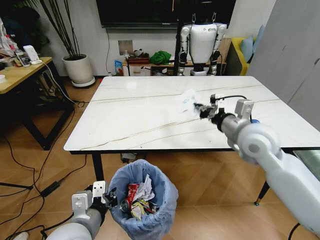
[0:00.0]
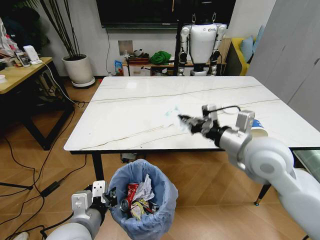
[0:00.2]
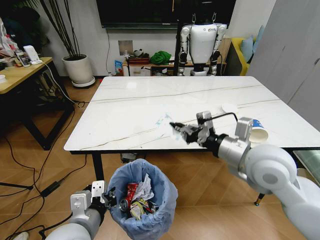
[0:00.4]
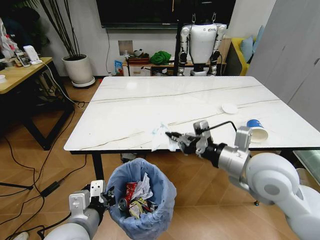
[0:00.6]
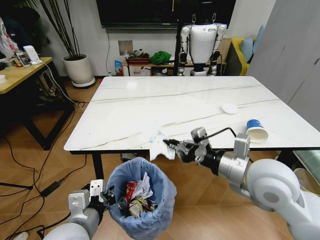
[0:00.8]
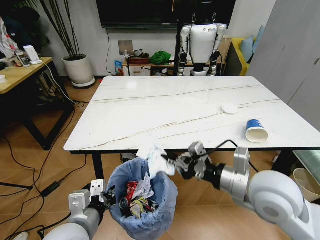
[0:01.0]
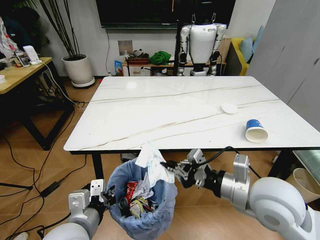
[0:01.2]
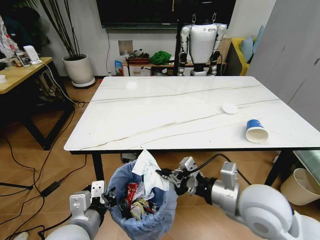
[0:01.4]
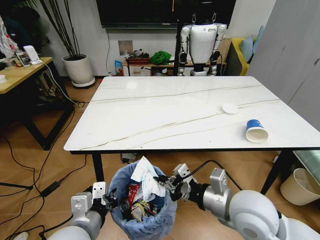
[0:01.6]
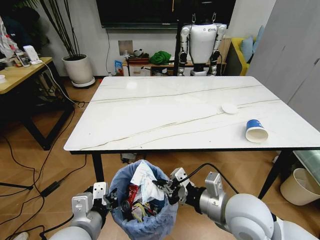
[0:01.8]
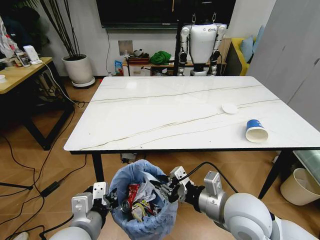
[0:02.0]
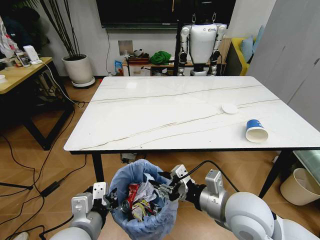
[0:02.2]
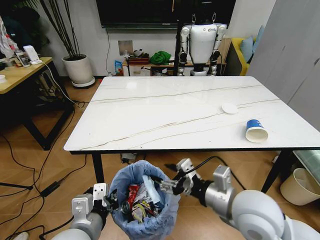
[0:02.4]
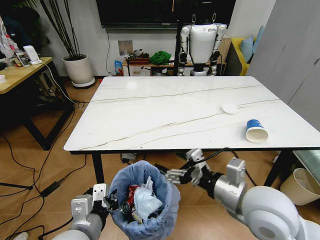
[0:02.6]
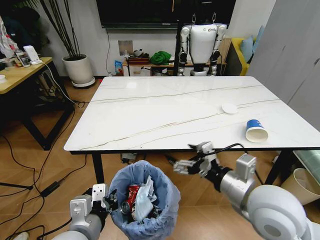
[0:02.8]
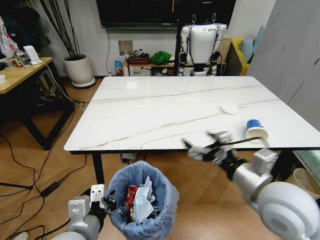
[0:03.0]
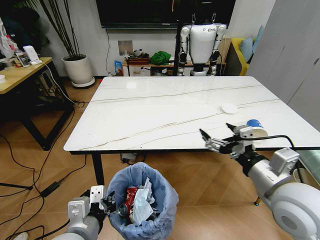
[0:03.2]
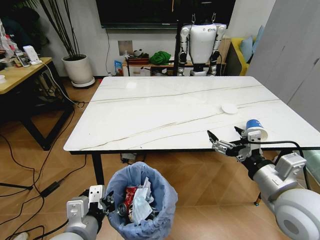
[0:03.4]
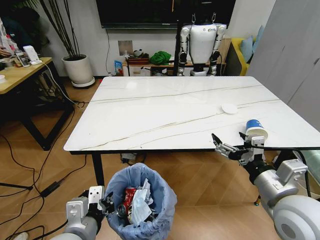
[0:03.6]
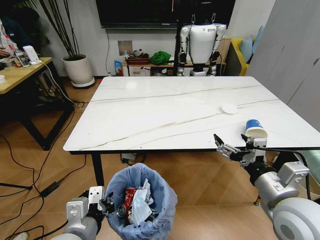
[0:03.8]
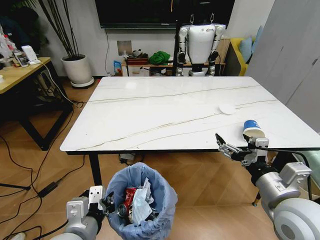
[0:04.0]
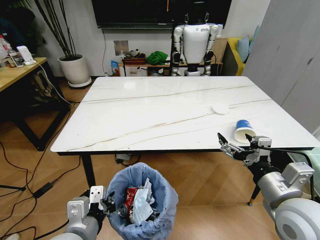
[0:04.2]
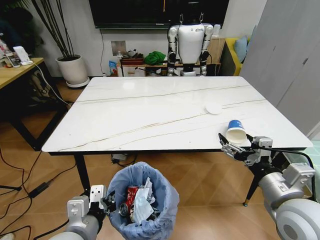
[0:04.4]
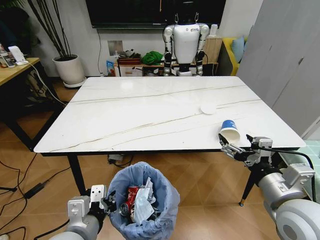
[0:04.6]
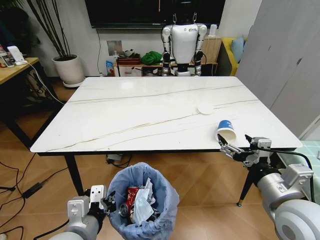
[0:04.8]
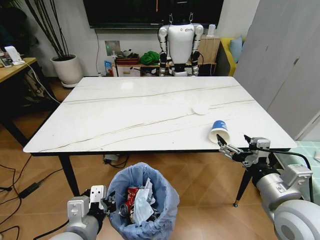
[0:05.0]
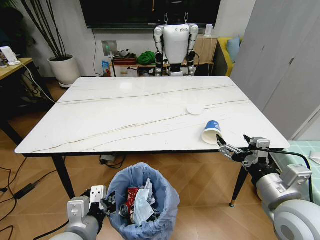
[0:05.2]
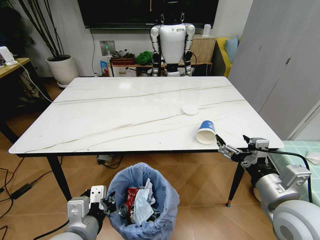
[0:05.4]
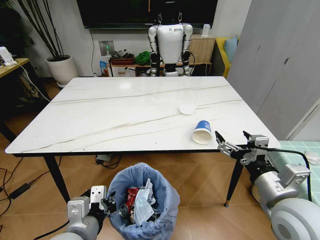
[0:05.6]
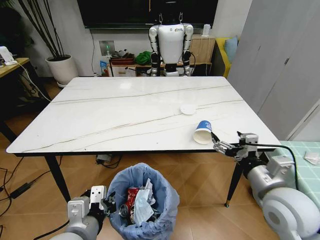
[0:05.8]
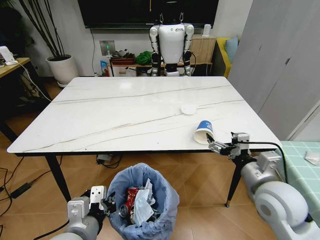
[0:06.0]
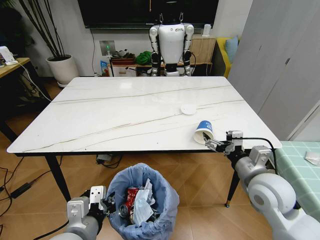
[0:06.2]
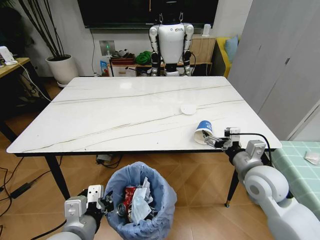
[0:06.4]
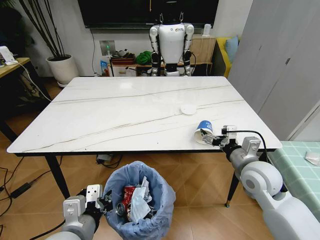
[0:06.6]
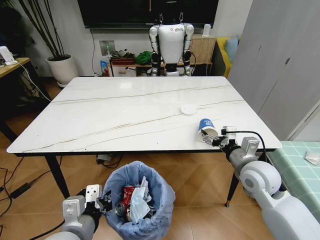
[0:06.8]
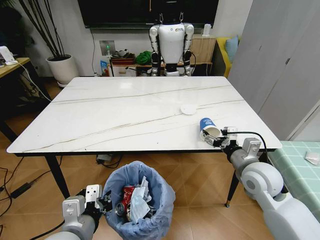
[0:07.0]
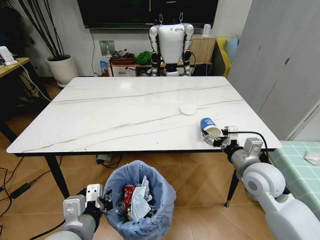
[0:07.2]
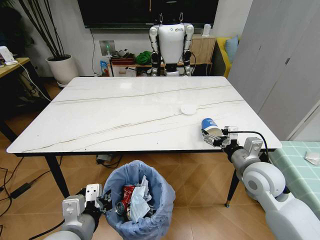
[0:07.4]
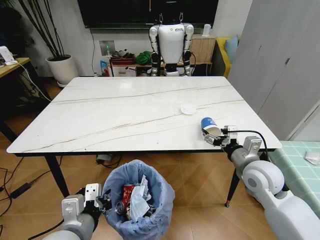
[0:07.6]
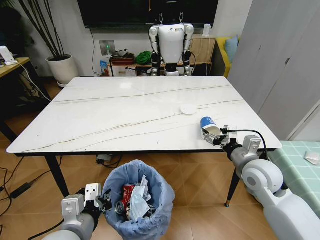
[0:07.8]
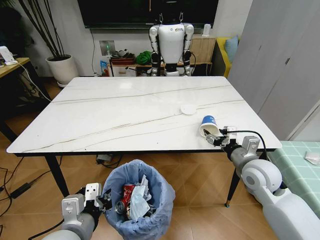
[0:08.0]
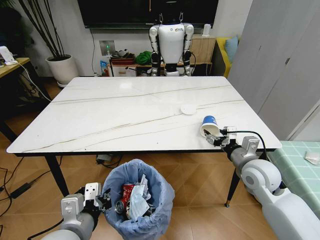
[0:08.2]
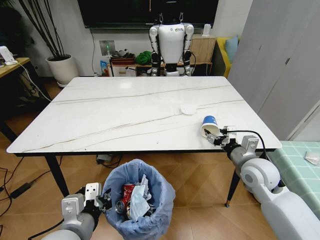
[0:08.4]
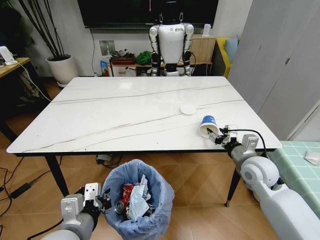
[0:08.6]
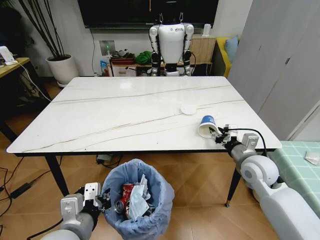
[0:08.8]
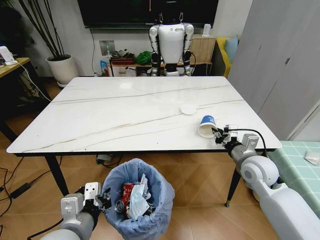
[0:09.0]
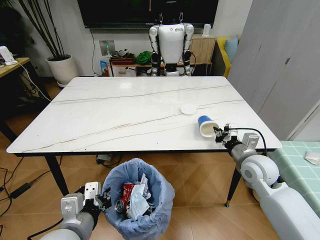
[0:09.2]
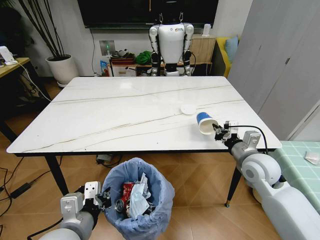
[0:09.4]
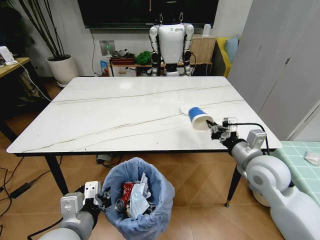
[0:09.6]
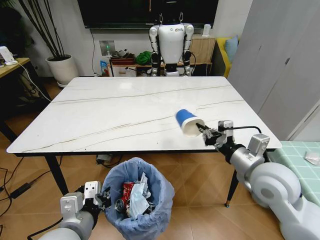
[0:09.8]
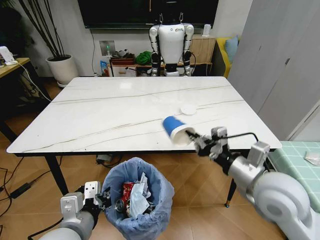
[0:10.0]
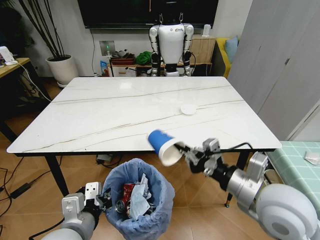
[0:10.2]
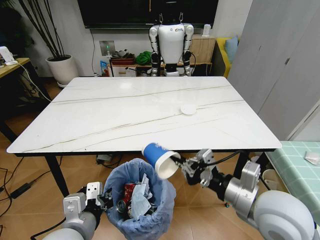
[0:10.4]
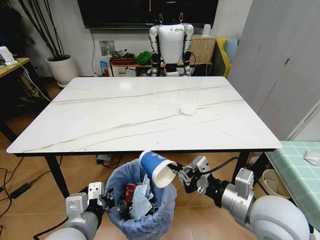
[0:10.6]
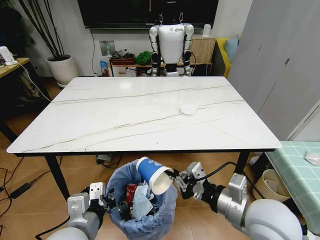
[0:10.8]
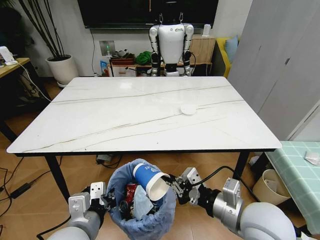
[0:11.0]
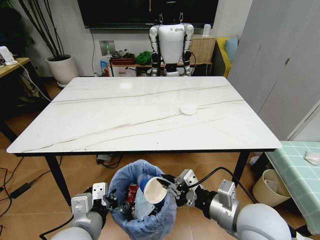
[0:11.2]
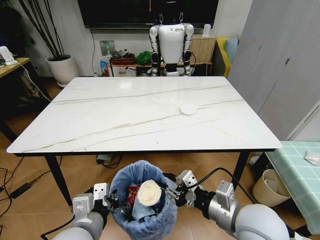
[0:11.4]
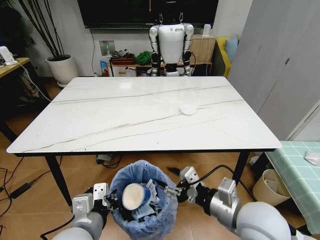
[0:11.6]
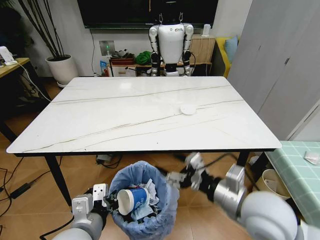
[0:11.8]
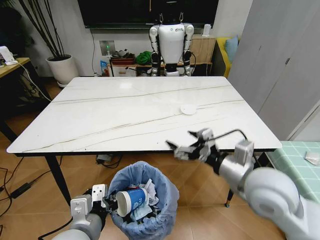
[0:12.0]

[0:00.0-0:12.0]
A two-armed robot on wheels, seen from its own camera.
Task of the whole recording: Pick up the trash bin and place the trash from the table into it.
0:00.0 to 0:01.6: The right gripper is displaced backward by roughly 20 cm.
0:01.6 to 0:03.0: The right gripper changes place by some 5 cm, and opens.
0:03.0 to 0:04.4: The right gripper moves approximately 5 cm.
0:04.4 to 0:06.0: The right gripper heads forward, covering some 5 cm.
0:06.0 to 0:07.6: The right gripper shifts some 5 cm forward.
0:07.6 to 0:09.0: The right gripper closes its fingers.
0:09.0 to 0:10.4: The right gripper moves backward, upward and to the left, roughly 20 cm.
0:10.4 to 0:12.0: The right gripper opens its fingers.

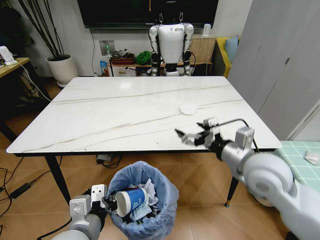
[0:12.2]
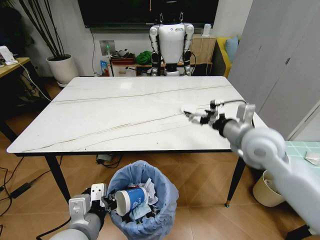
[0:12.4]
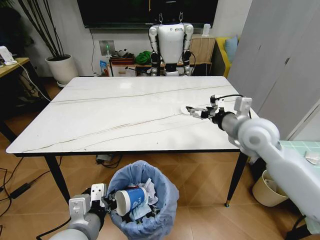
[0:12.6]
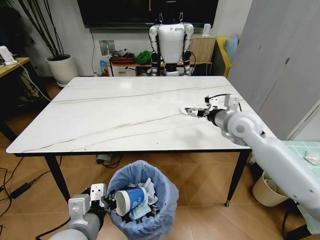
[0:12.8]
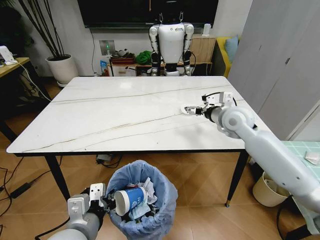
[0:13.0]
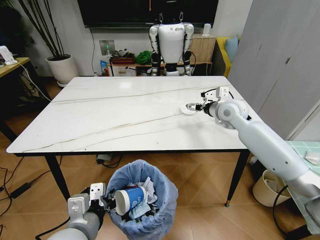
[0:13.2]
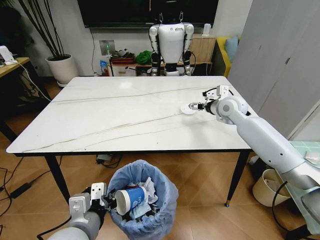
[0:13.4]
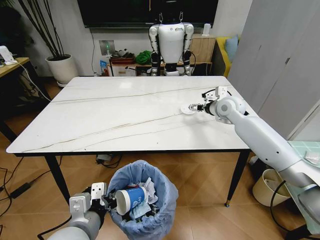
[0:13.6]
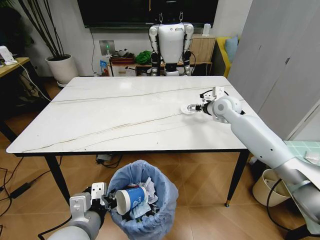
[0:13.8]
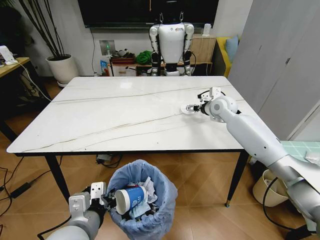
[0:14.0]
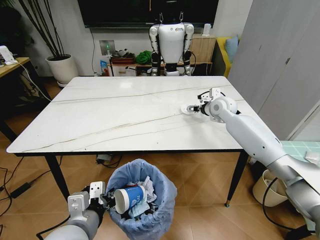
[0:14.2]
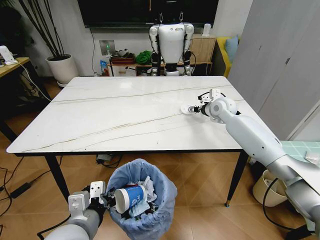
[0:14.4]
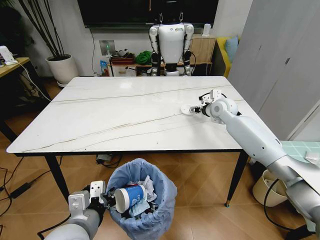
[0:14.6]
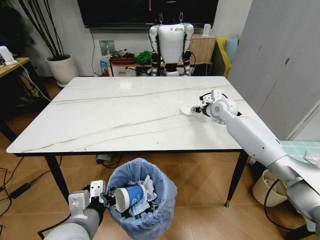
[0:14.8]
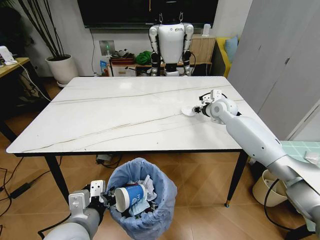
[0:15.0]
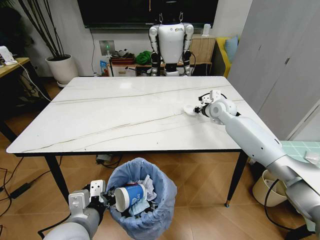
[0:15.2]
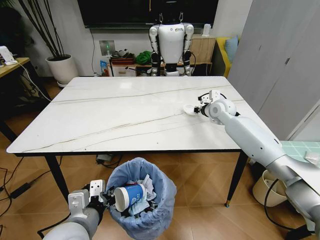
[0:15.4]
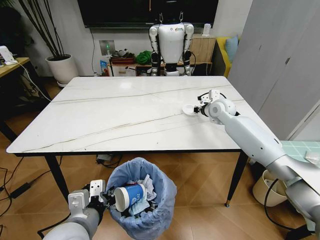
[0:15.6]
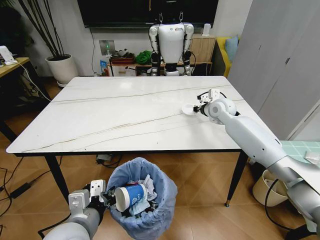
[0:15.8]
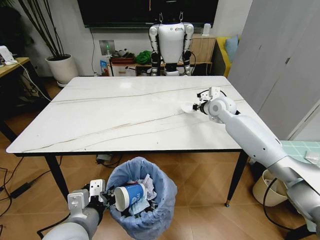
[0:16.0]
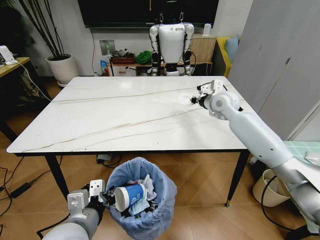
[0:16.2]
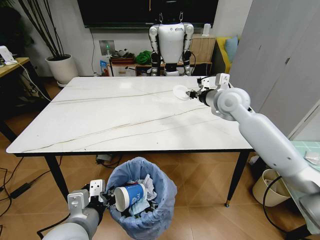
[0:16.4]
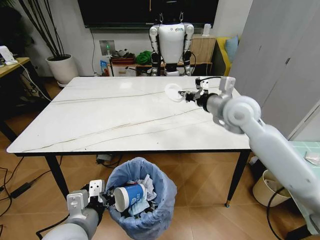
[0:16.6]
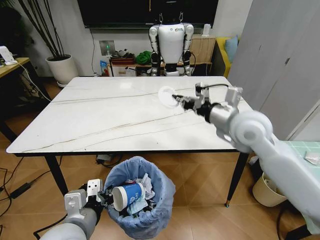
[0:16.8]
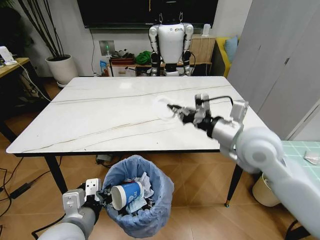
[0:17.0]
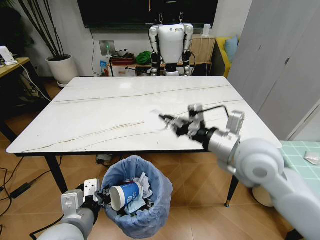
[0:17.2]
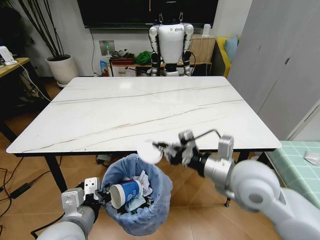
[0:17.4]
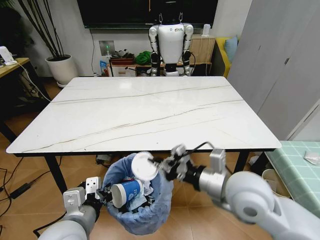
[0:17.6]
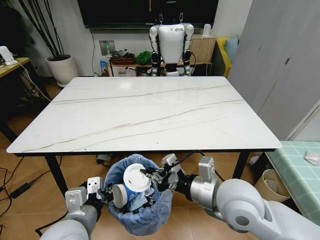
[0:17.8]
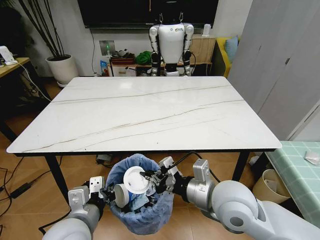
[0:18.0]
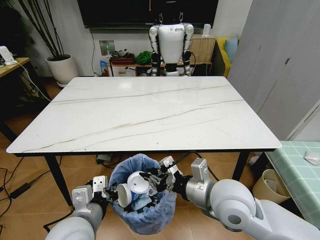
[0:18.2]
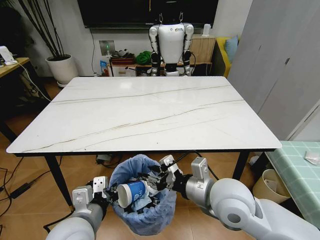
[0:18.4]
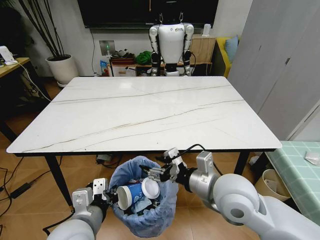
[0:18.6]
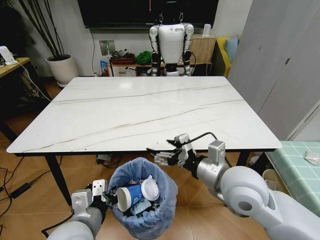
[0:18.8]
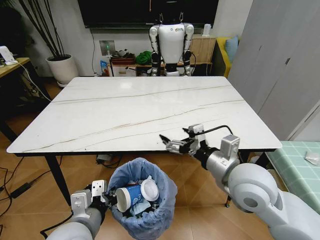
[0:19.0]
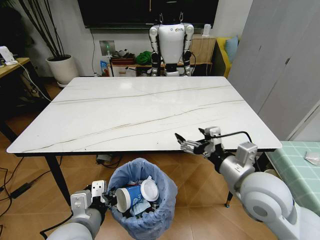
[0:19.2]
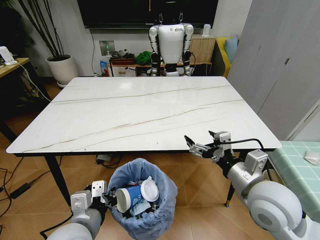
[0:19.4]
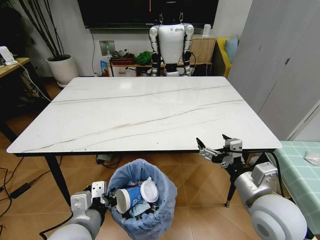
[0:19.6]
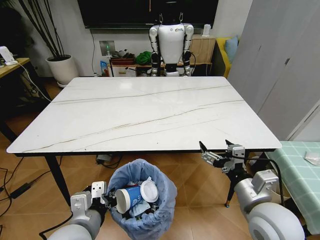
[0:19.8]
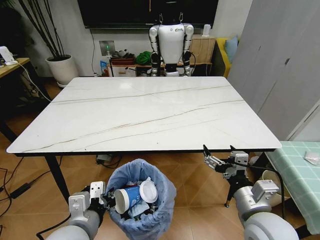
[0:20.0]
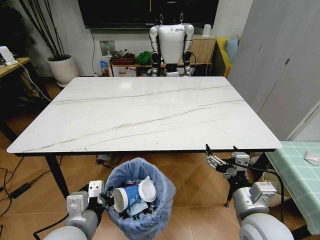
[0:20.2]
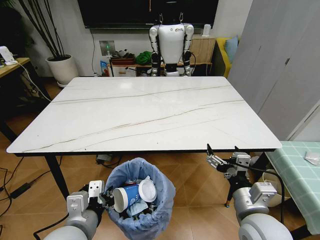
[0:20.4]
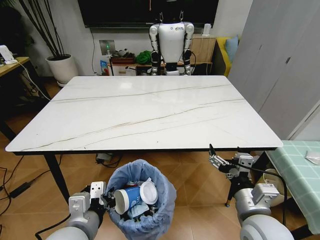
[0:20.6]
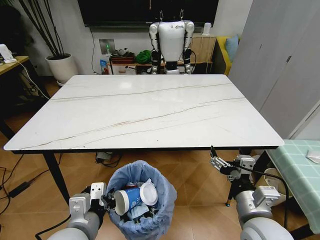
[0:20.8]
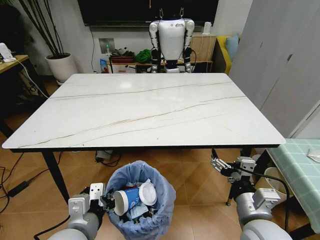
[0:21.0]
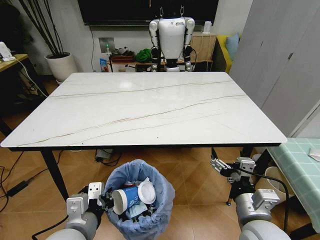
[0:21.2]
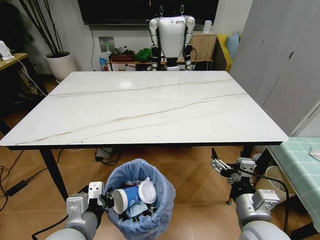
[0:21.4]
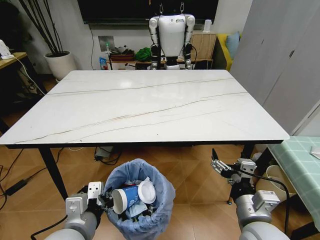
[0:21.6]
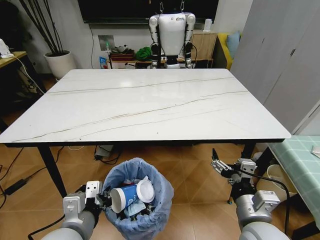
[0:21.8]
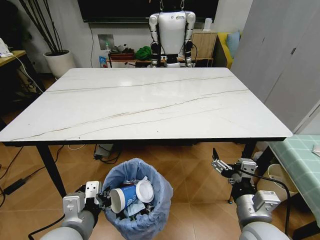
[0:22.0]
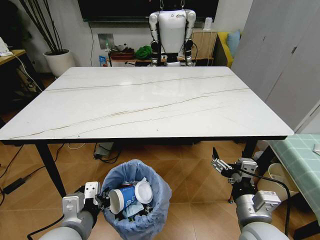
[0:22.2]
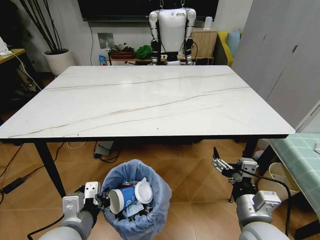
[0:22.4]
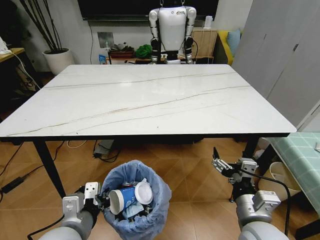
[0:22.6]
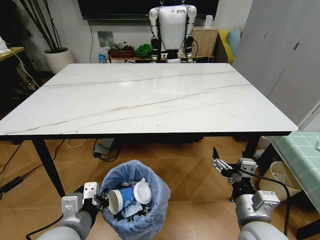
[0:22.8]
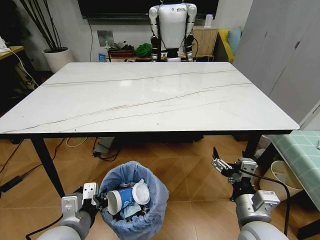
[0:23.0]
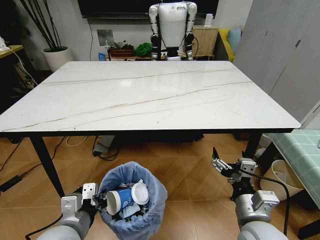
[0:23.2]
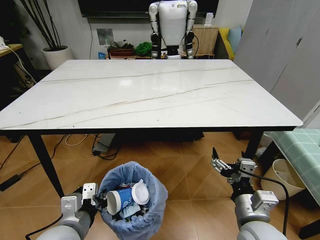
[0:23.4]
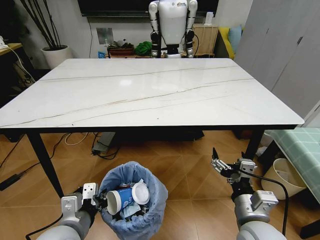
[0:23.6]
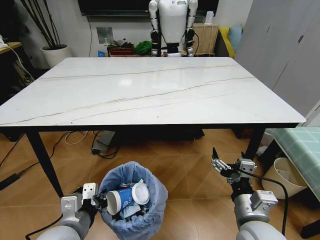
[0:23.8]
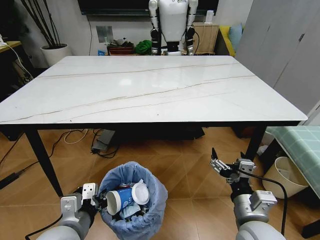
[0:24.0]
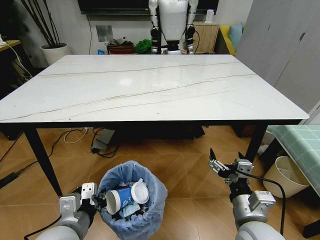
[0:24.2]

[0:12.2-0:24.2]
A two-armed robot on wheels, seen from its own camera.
Task of the whole recording: Pick up the trash bin and place the trash from the table into it.
0:12.2 to 0:13.8: The right gripper goes roughly 30 cm forward.
0:13.8 to 0:15.2: The right gripper closes its fingers.
0:15.2 to 0:16.6: The right gripper moves backward and upward, approximately 20 cm.
0:16.6 to 0:18.2: The right gripper is displaced backward and downward by about 25 cm.
0:18.2 to 0:19.8: The right gripper goes some 10 cm to the right, and opens its fingers.
